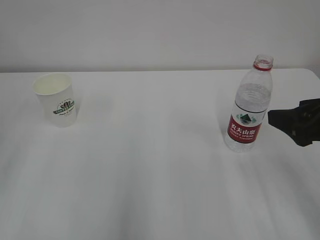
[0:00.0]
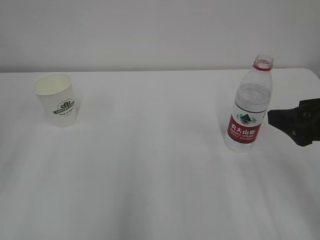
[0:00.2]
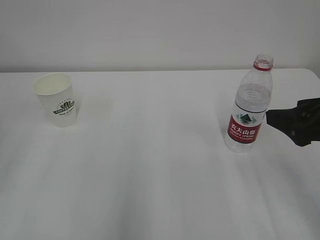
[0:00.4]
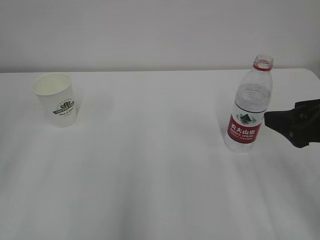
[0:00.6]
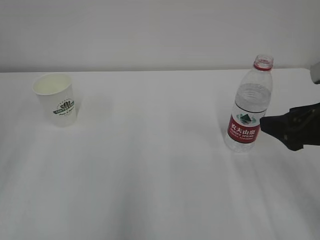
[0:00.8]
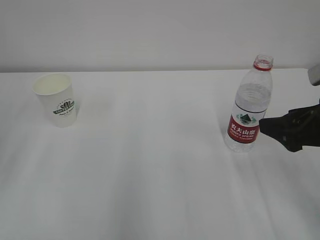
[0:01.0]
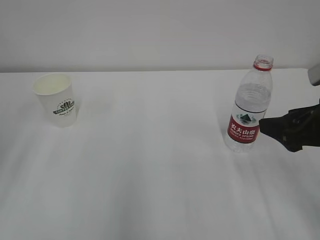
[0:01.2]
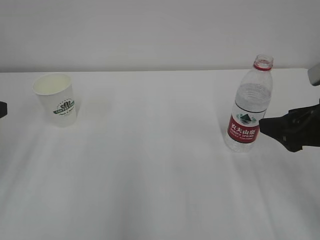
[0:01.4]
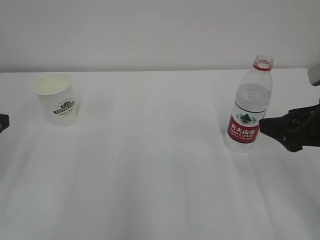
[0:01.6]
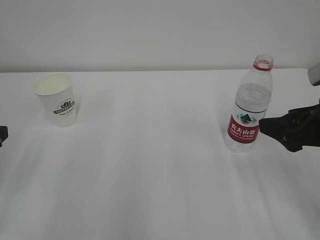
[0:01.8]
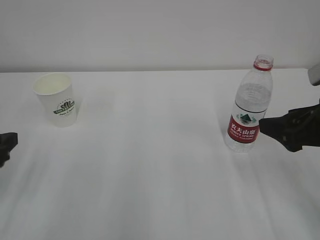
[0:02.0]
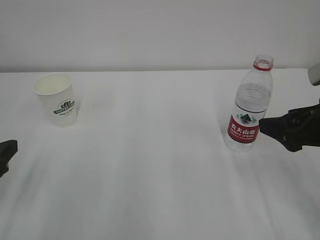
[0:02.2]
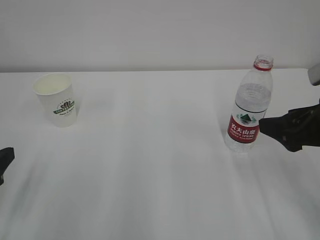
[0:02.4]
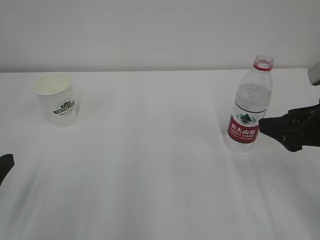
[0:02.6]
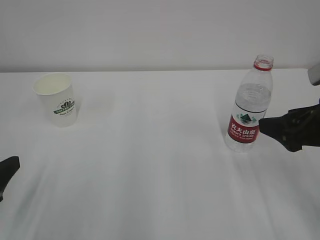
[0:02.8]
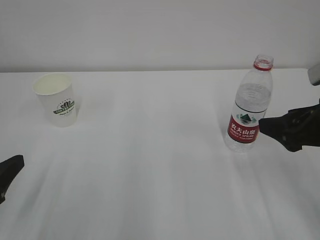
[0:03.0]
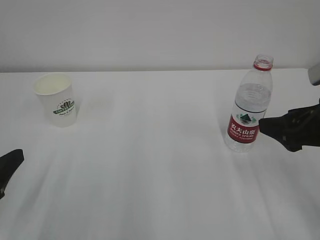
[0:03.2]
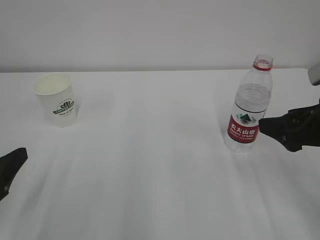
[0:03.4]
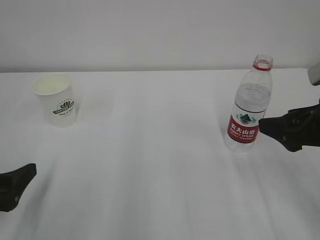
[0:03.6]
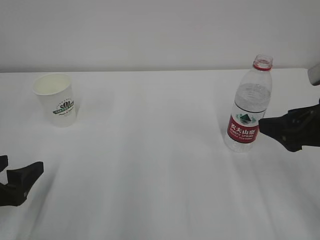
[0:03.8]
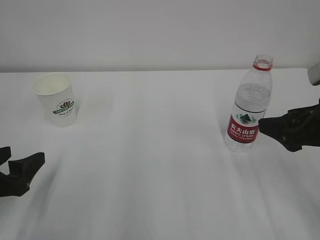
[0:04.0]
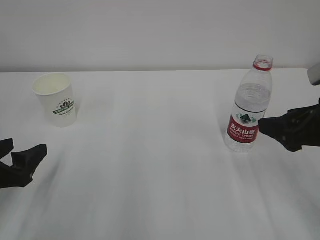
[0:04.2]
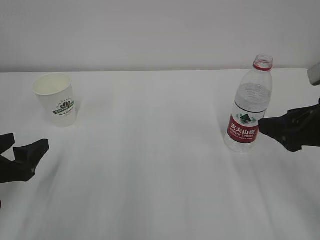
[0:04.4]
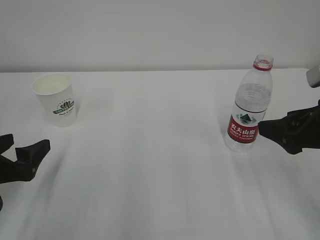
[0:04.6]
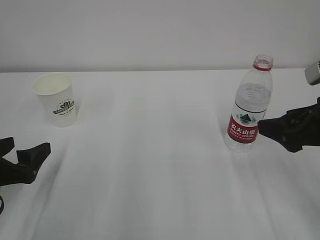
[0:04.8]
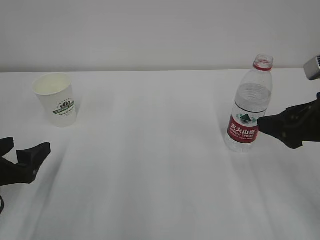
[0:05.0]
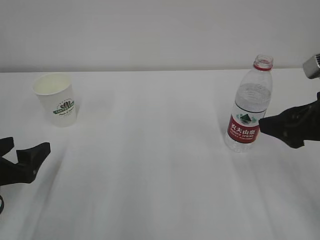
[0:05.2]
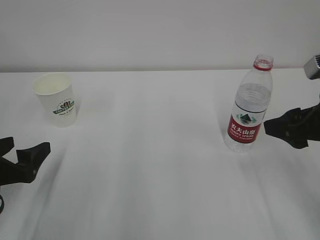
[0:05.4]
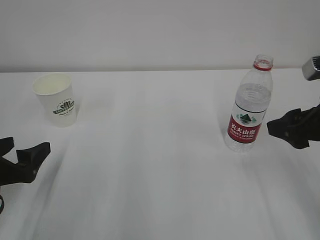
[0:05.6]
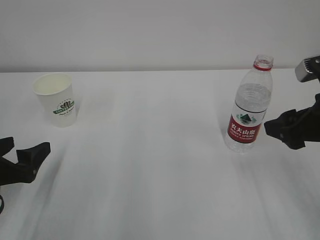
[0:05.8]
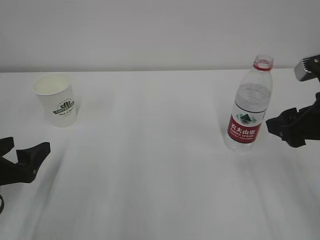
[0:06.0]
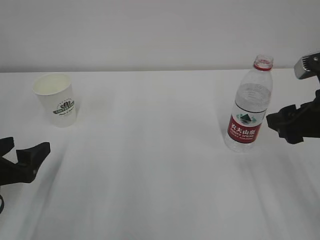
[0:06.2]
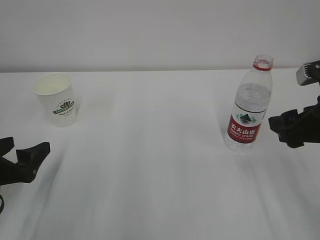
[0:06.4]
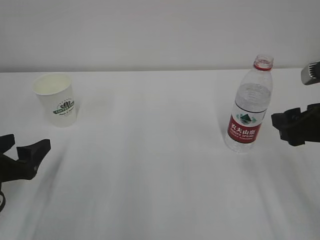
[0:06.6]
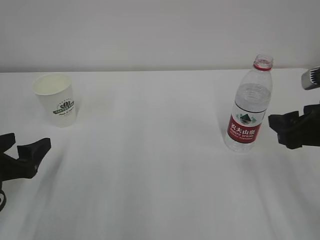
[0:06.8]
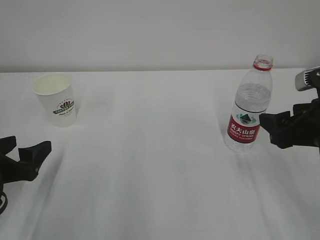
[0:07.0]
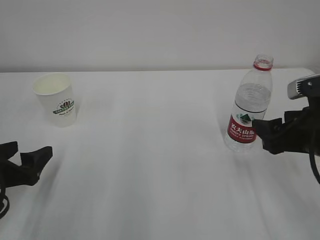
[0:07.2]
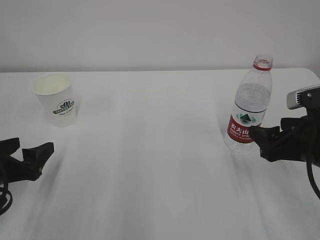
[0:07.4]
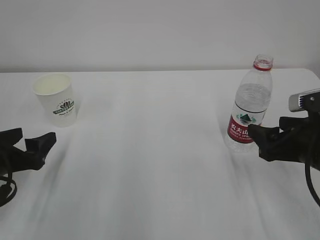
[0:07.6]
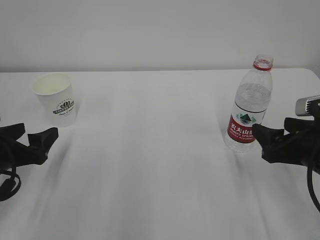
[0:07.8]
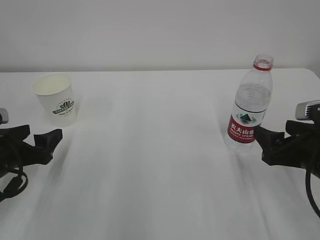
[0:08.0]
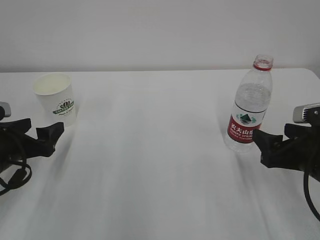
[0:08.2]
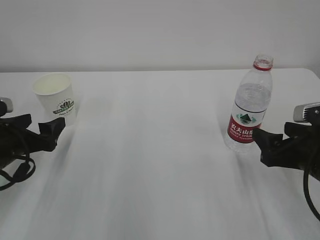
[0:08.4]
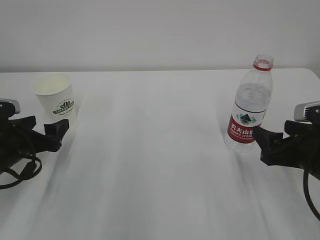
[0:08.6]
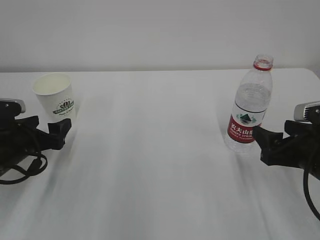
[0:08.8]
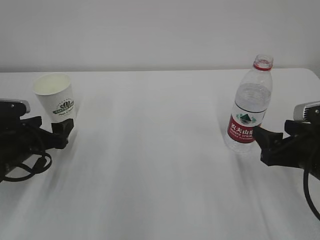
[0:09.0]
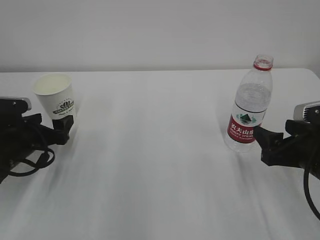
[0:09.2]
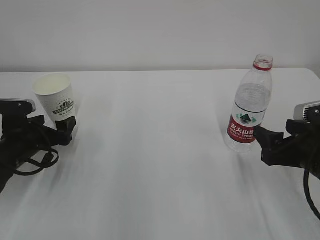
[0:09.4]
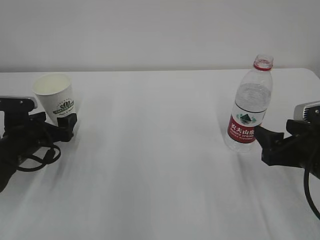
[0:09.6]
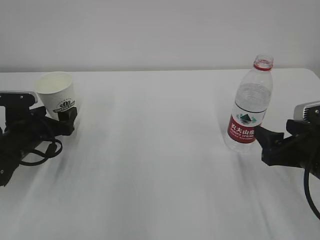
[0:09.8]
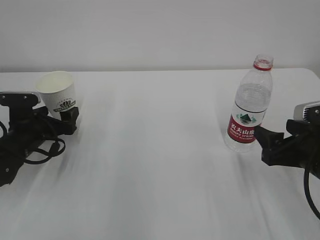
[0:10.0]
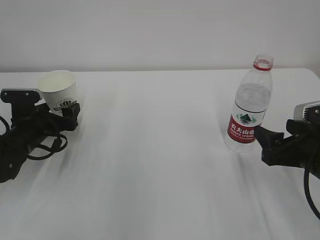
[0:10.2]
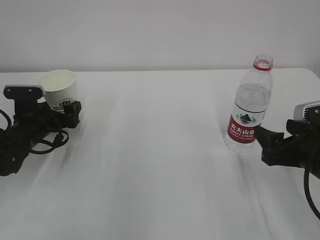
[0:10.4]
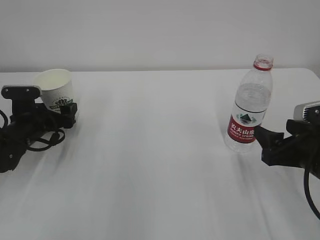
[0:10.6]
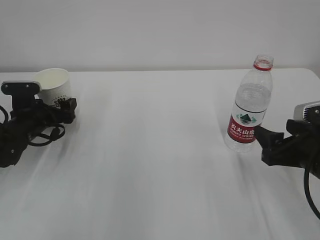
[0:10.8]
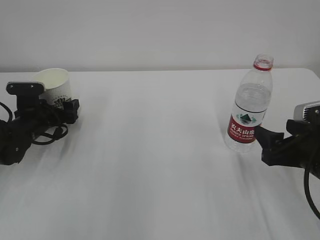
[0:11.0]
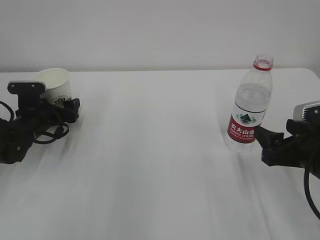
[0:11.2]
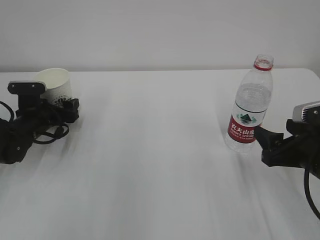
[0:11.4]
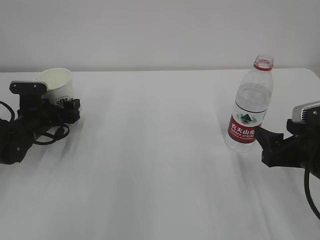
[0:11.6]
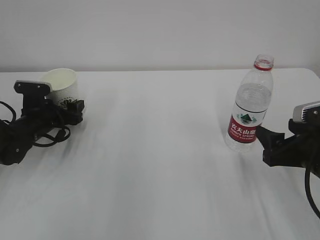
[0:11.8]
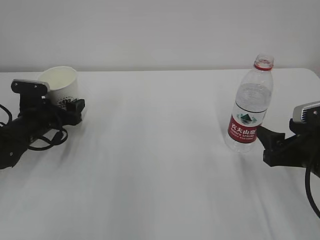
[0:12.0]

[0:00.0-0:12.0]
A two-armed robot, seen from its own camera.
0:01.6 to 0:03.0: The left gripper shifts some 10 cm backward.
0:03.0 to 0:04.4: The left gripper travels forward by roughly 5 cm.
0:04.4 to 0:06.0: The grippers make only small movements.
0:06.0 to 0:07.6: The right gripper heads downward, covering roughly 5 cm.
0:07.6 to 0:09.0: The left gripper shifts roughly 10 cm forward.
0:09.0 to 0:10.4: The left gripper moves forward, approximately 5 cm.
0:10.4 to 0:12.0: The grippers make only small movements.

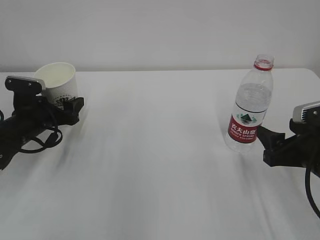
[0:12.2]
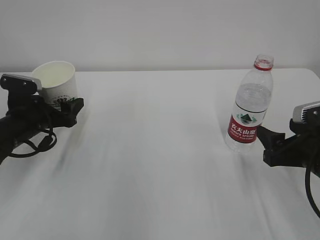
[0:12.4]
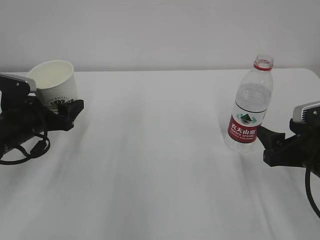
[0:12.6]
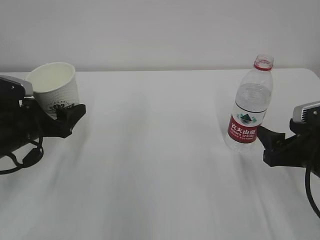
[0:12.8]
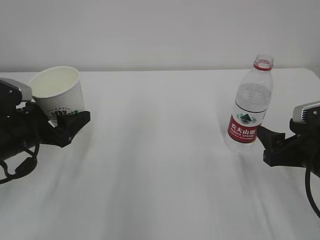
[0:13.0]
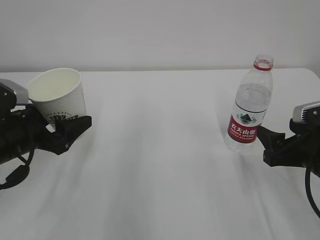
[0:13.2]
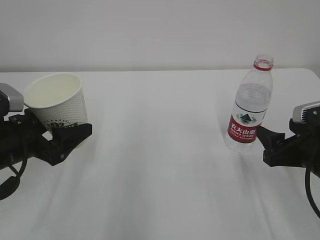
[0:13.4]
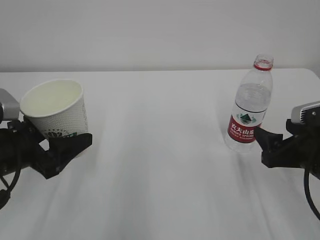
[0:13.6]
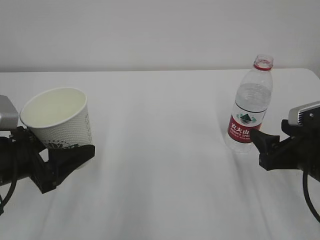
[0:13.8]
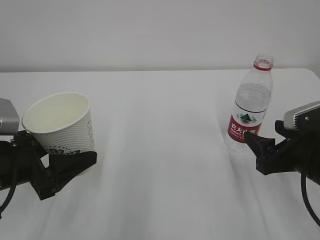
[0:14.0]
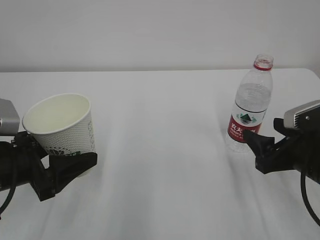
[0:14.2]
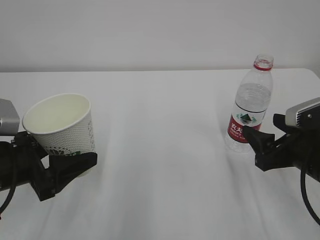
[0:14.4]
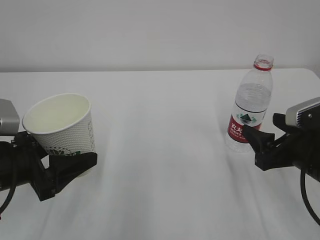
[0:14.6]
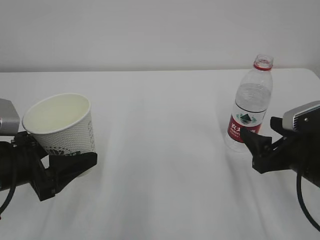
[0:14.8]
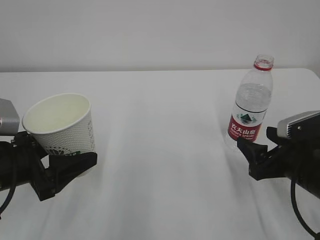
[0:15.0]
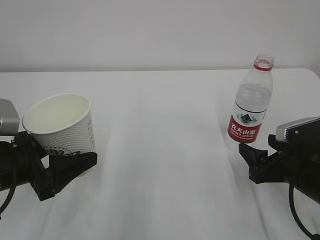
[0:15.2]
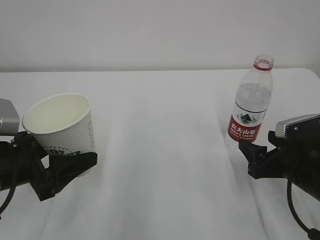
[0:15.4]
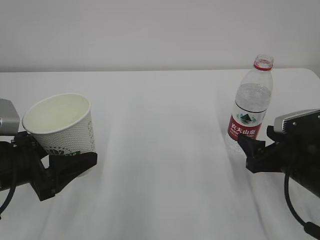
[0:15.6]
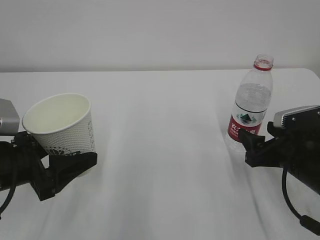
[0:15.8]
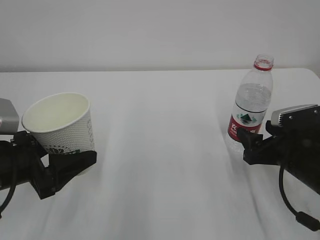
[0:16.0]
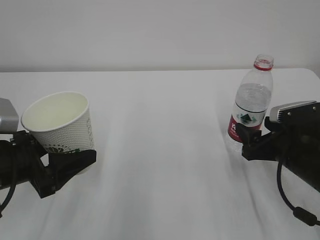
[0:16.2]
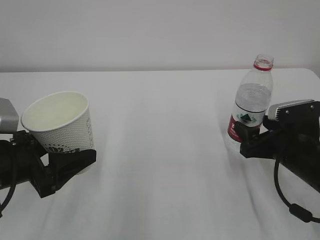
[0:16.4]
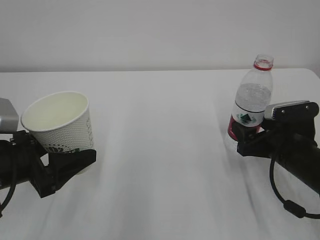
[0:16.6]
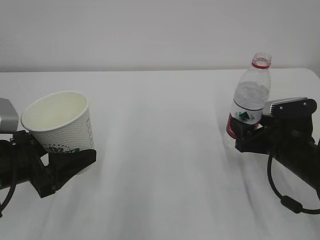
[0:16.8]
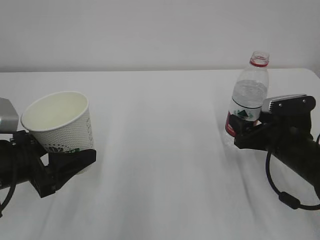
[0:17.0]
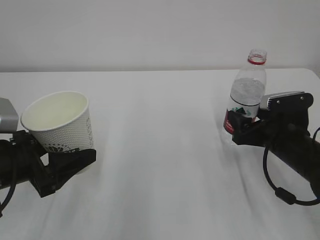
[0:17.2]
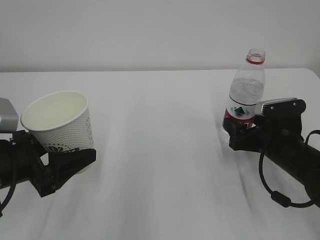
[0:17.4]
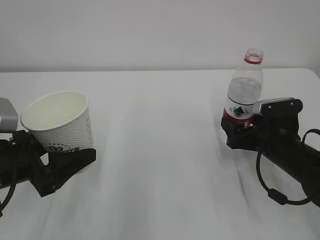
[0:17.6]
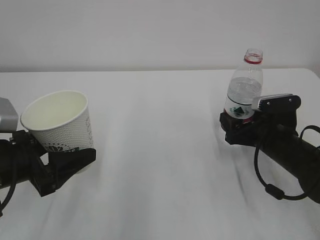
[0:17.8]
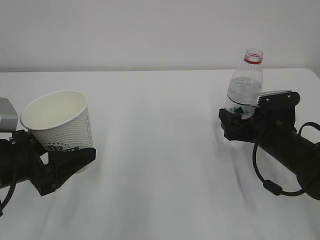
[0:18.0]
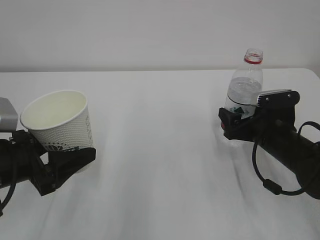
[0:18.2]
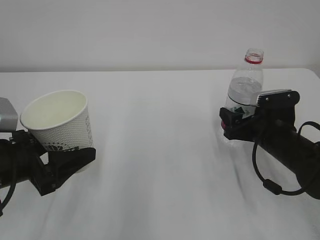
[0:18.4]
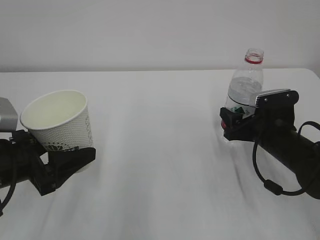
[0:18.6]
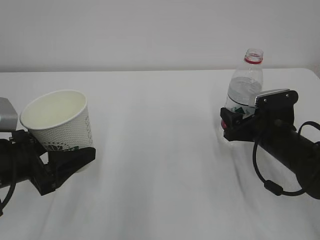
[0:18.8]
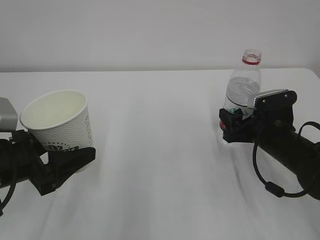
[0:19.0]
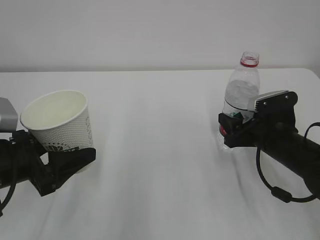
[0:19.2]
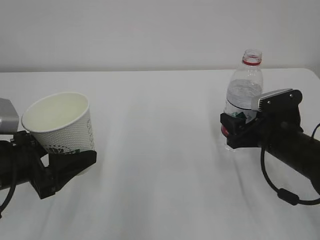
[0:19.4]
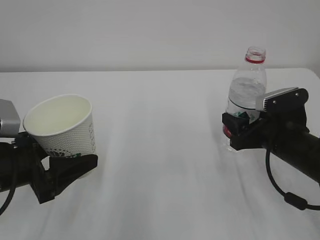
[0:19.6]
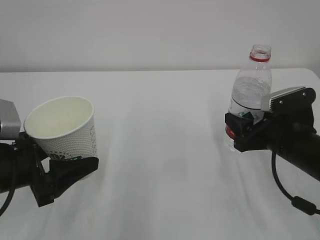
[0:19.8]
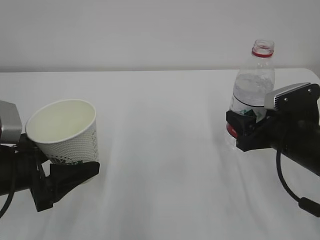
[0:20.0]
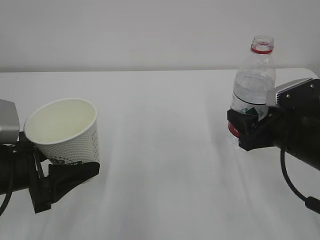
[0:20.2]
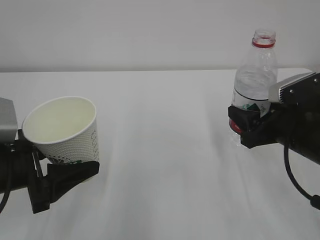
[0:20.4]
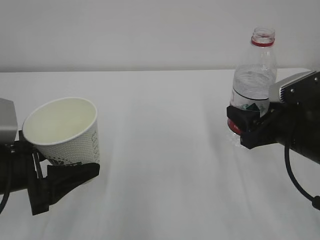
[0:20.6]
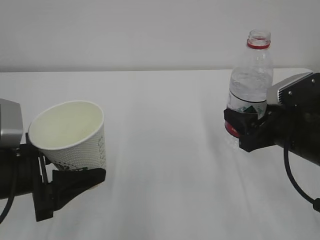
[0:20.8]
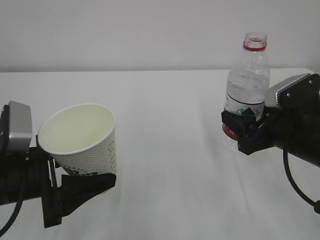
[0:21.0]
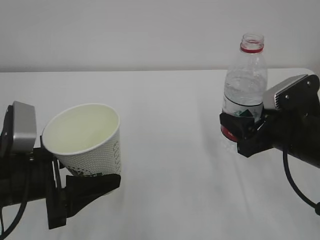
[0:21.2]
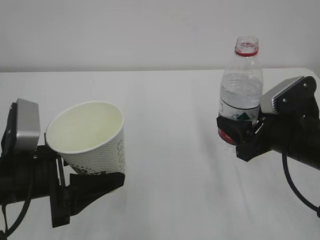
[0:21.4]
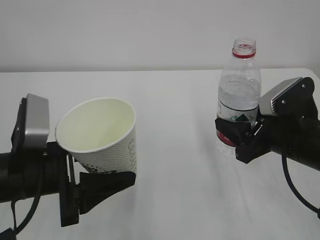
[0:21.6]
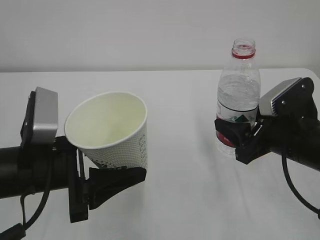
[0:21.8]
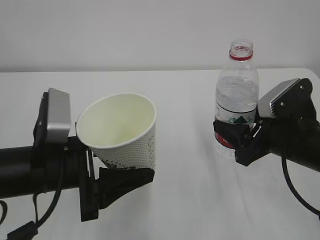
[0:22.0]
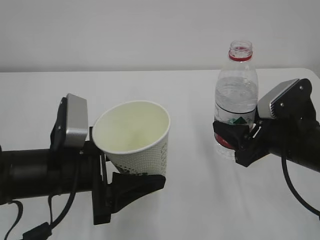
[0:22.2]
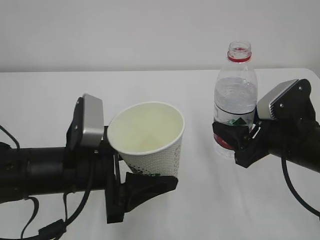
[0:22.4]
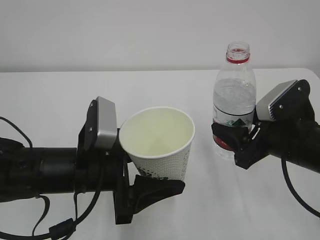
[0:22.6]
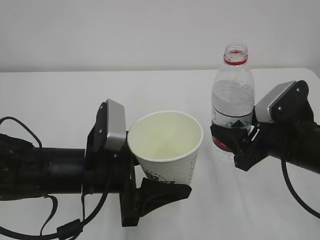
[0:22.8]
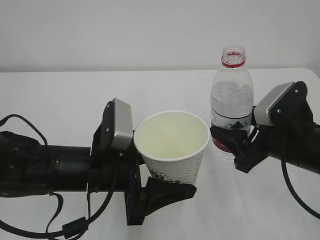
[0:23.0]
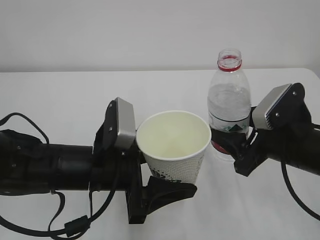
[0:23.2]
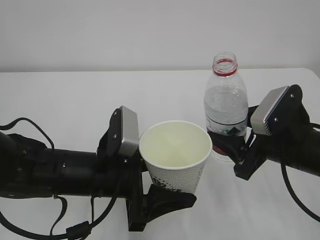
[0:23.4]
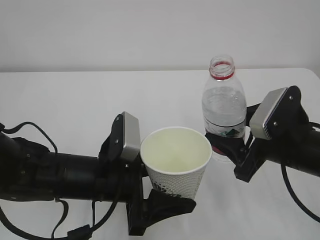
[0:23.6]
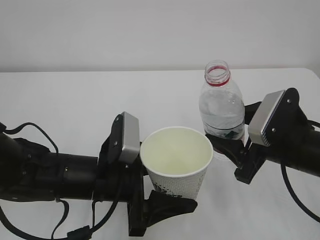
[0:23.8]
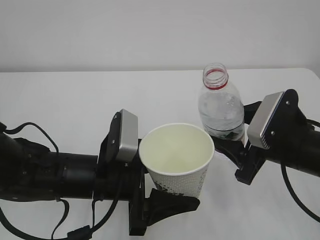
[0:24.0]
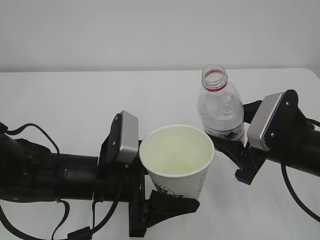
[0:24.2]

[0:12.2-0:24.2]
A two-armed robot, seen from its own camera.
0:12.2 to 0:13.8: The left gripper shifts about 15 cm backward.
0:13.8 to 0:15.2: The grippers move only a little.
0:15.2 to 0:16.6: The grippers move only a little.
0:16.6 to 0:18.2: There are only small adjustments of the grippers.
0:18.2 to 0:19.8: The right gripper moves approximately 5 cm, and closes up.
0:19.8 to 0:21.2: There are only small adjustments of the grippers.
0:21.2 to 0:22.6: The left gripper is displaced to the right by roughly 10 cm.
